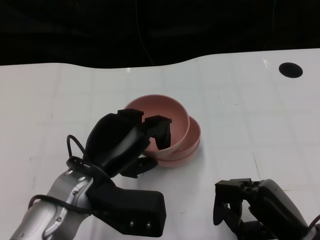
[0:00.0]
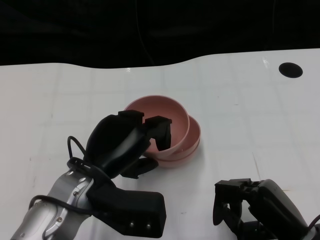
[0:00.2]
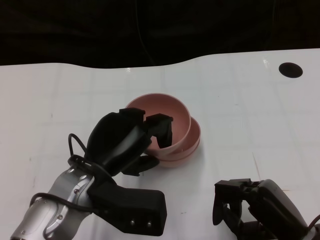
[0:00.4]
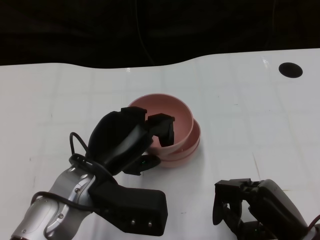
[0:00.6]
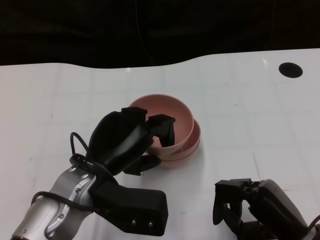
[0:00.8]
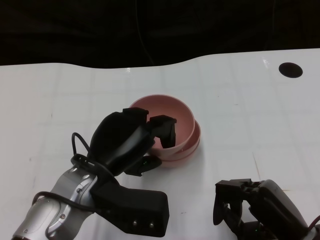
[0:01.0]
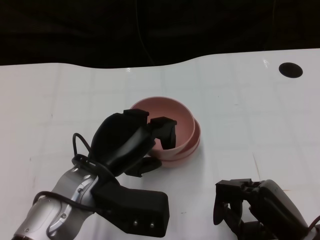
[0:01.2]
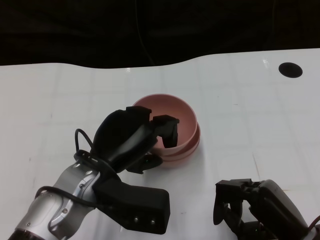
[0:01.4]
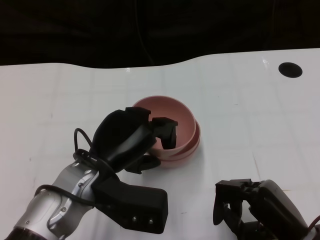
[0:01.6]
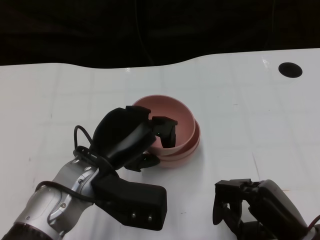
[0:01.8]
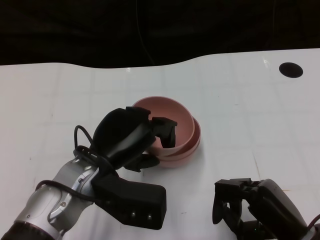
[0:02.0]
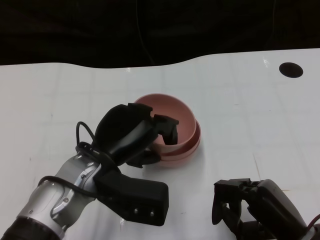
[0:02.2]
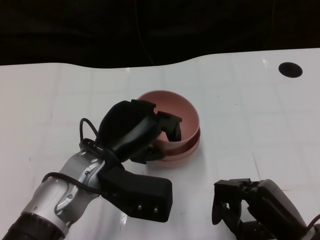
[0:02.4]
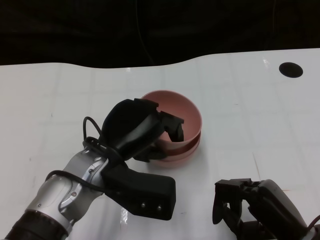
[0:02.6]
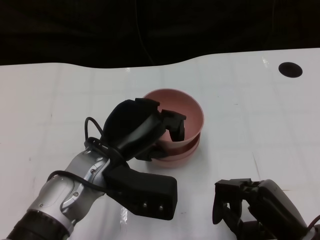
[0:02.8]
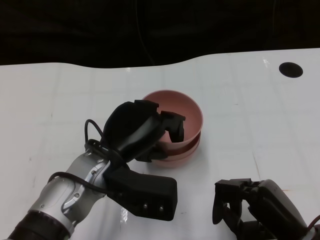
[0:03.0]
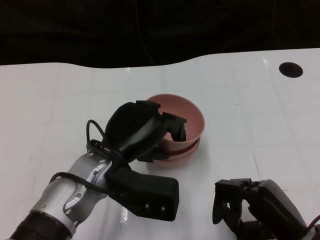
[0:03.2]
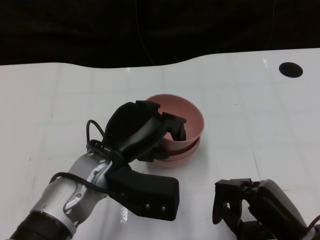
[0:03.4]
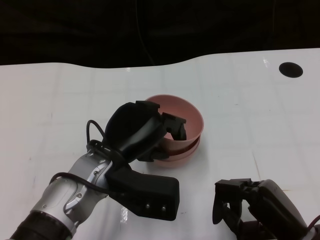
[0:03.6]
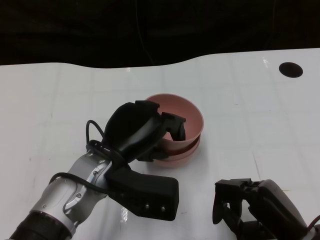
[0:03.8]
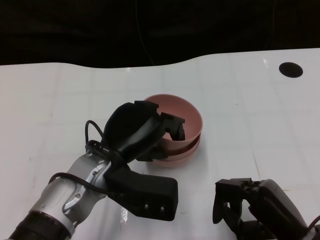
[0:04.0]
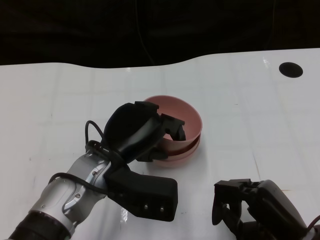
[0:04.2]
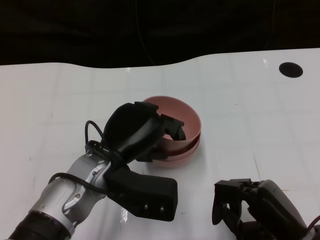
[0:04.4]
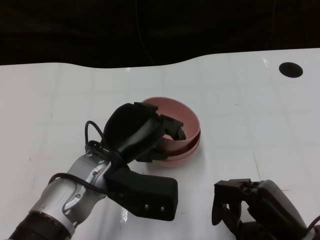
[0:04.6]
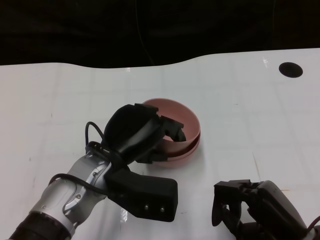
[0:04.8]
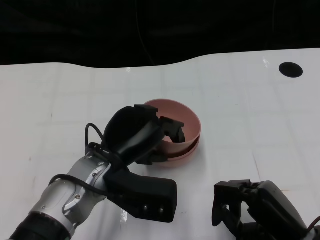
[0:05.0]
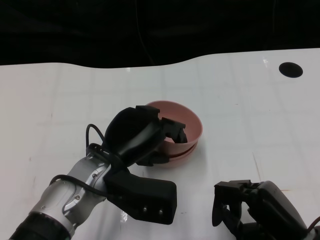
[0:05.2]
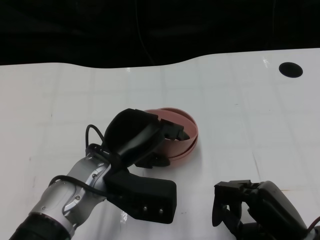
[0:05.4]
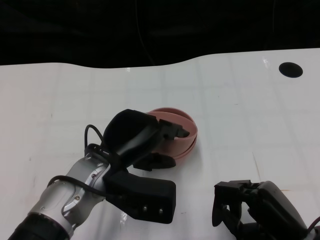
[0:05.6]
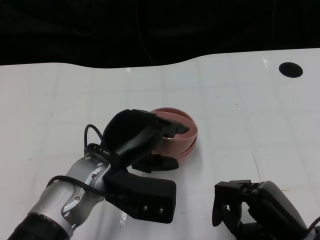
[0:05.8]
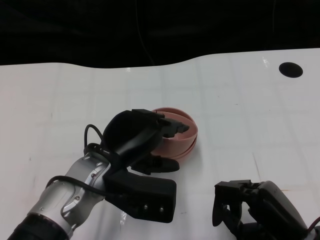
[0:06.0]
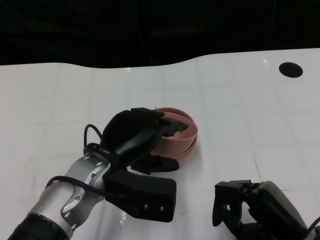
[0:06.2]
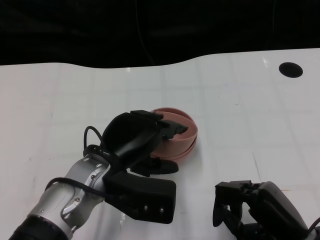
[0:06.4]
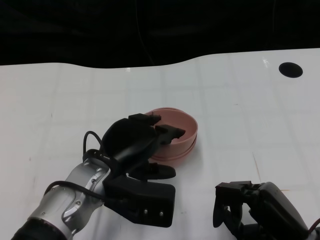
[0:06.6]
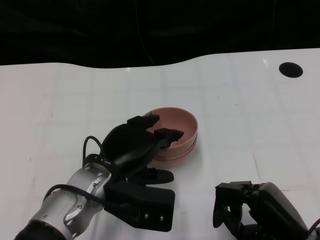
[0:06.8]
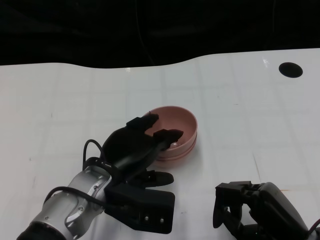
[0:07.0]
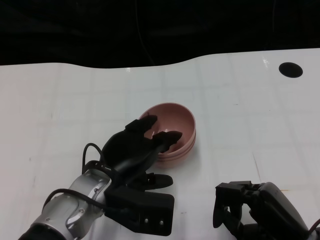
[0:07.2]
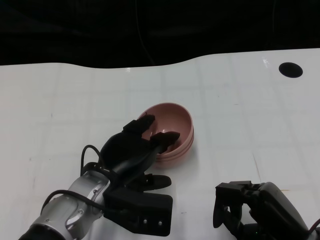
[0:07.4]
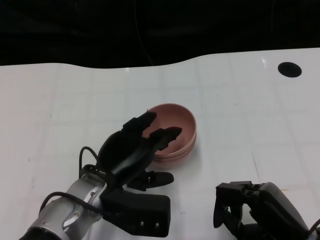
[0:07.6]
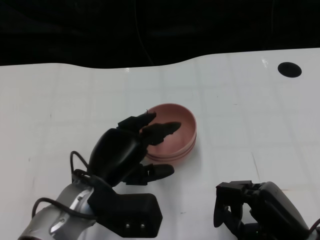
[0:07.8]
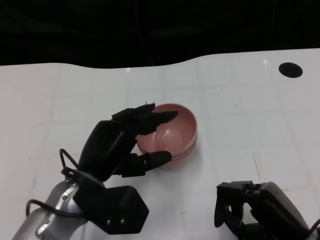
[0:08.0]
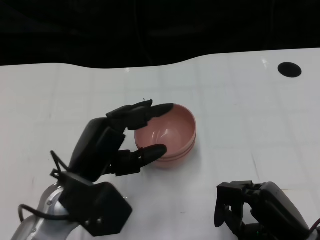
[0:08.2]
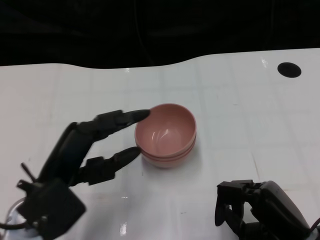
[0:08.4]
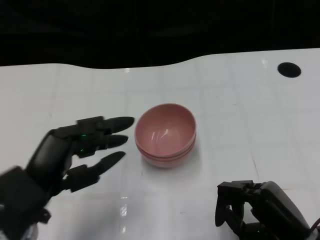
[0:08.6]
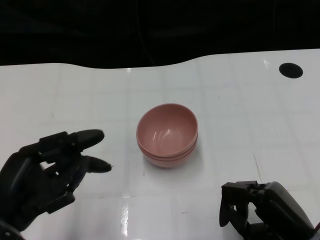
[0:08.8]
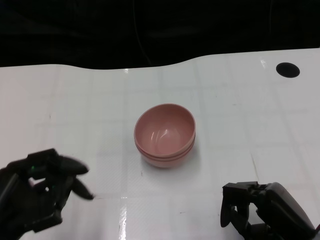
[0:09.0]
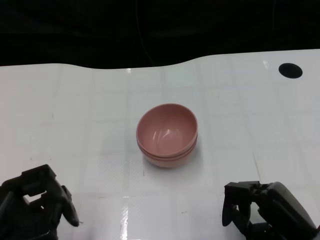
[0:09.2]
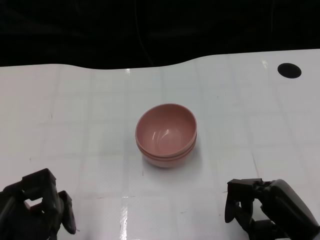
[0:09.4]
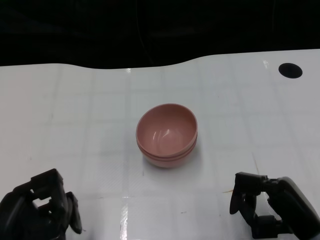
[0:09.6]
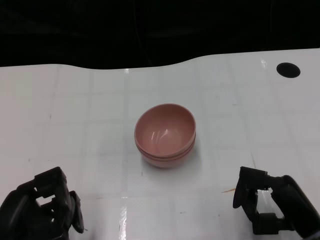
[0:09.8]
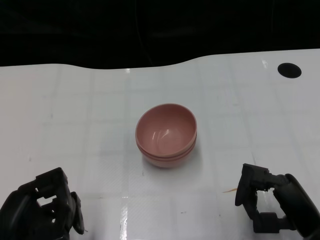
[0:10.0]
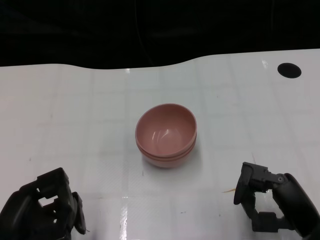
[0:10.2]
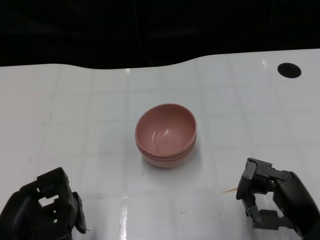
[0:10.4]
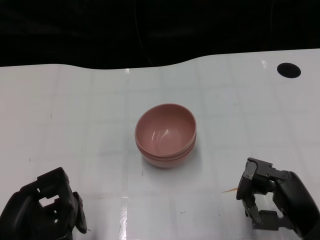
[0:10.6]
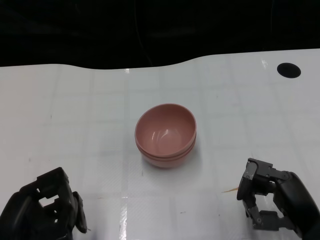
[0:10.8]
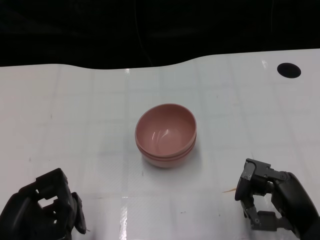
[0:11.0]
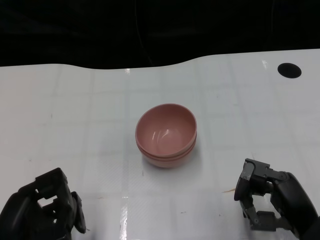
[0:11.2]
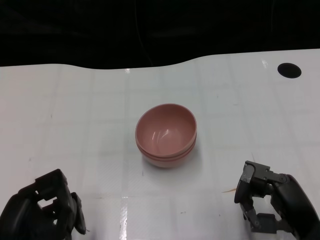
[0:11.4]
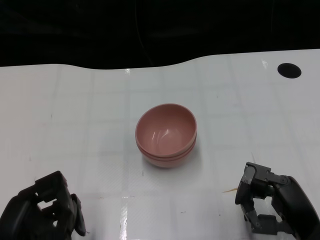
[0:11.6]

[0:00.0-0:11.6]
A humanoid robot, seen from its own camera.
Task of the whole recording: Pick up the bowl on one side of the table and place it on top of the middle bowl, then pick up the bowl on the other side of the table and place it on top of the middle bowls.
Step, 0:00.0 to 0:08.0: Place the bowl on the left onto the bowl in the middle with left gripper.
0:00.0 to 0:01.4: Neither hand changes place.
0:01.4 to 0:02.8: The hands move only a little.
0:02.8 to 0:04.4: Neither hand changes place.
0:04.4 to 0:07.2: The hands make only small movements.
0:07.2 to 0:08.8: The left hand is displaced to the left and backward by approximately 15 cm.
0:08.8 to 0:10.2: The left hand heads downward, covering roughly 5 cm.
0:10.2 to 0:11.6: The hands move only a little.

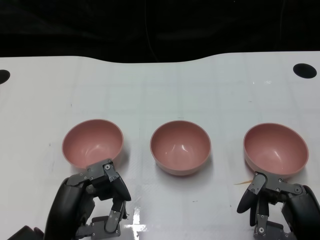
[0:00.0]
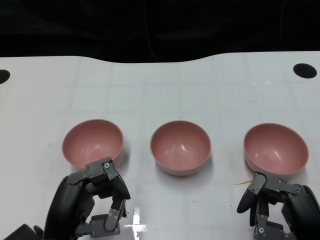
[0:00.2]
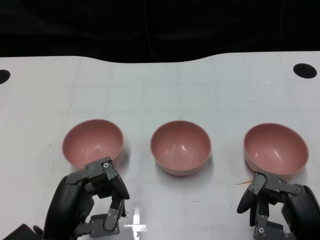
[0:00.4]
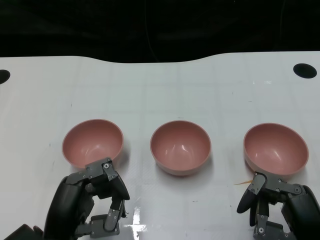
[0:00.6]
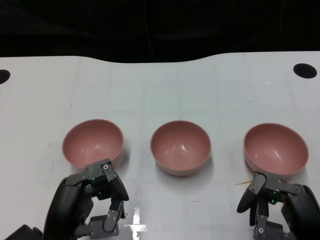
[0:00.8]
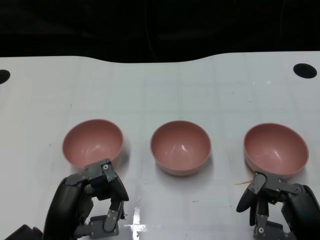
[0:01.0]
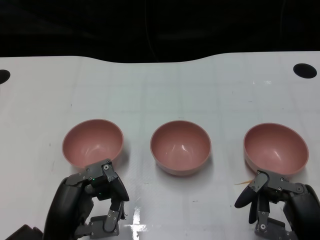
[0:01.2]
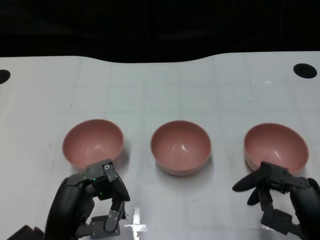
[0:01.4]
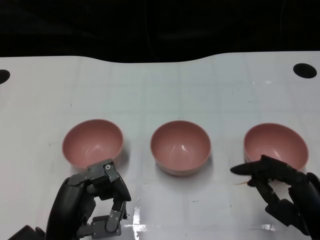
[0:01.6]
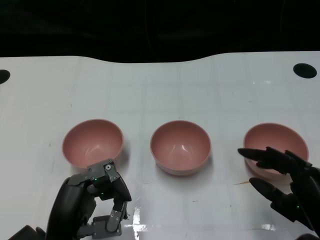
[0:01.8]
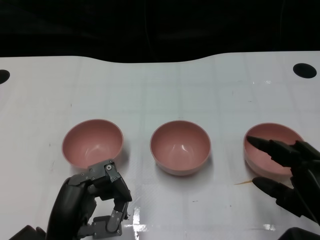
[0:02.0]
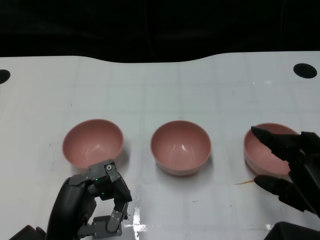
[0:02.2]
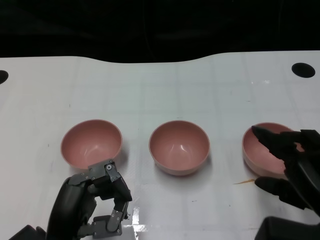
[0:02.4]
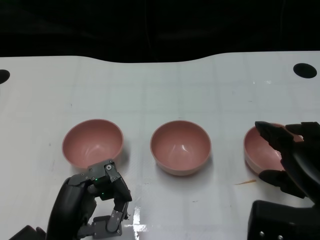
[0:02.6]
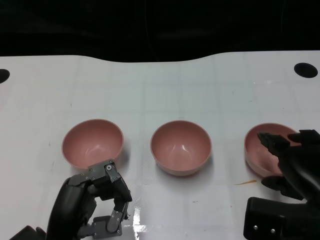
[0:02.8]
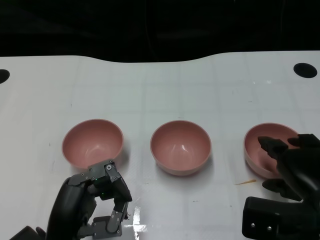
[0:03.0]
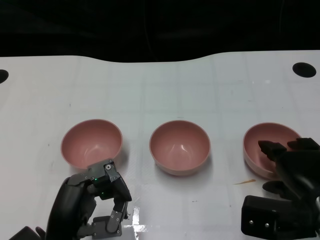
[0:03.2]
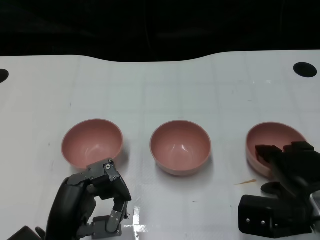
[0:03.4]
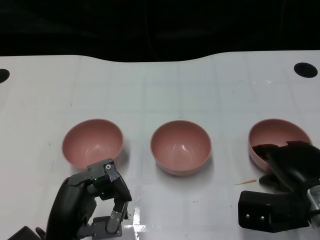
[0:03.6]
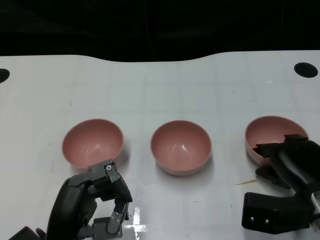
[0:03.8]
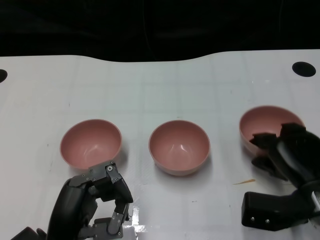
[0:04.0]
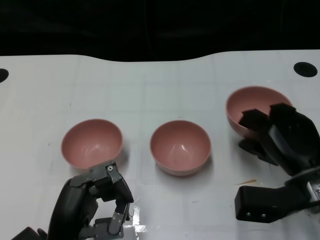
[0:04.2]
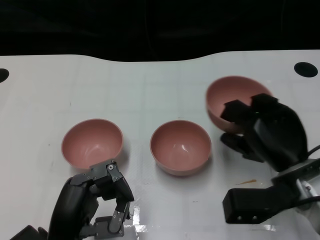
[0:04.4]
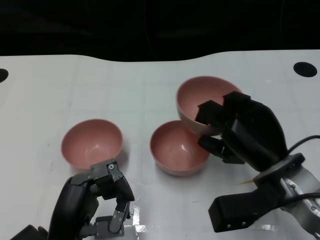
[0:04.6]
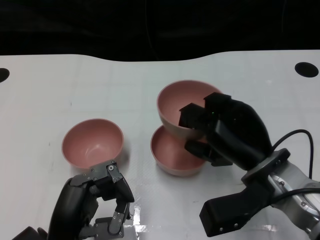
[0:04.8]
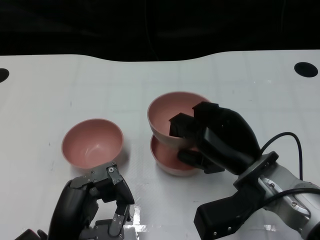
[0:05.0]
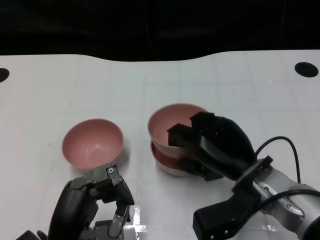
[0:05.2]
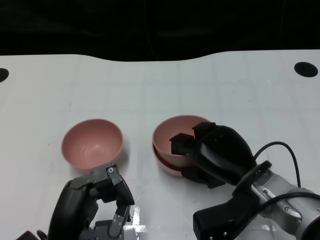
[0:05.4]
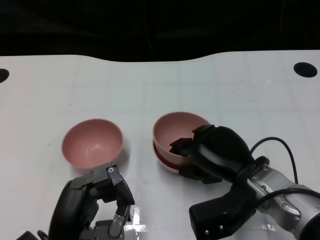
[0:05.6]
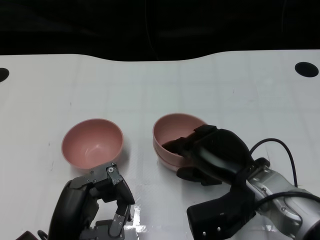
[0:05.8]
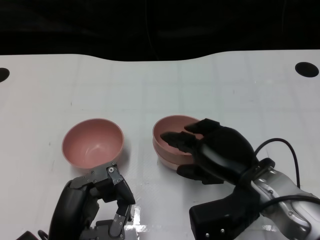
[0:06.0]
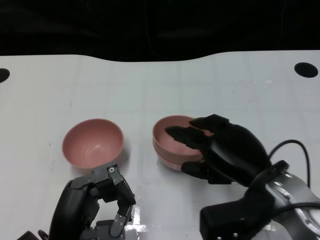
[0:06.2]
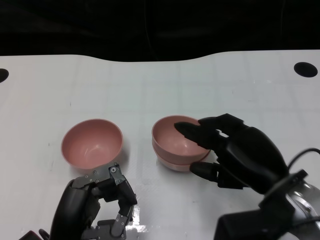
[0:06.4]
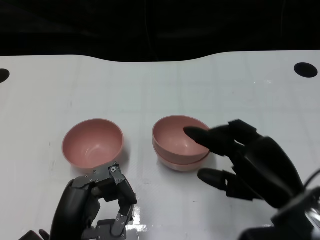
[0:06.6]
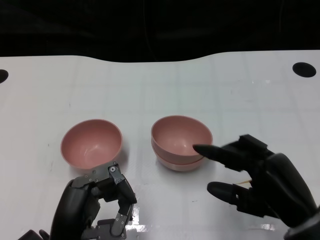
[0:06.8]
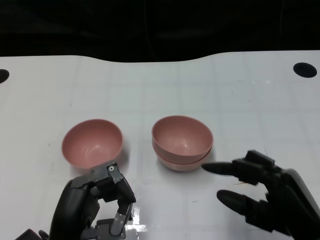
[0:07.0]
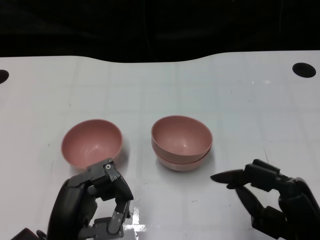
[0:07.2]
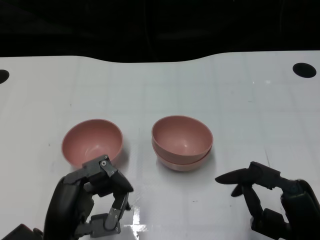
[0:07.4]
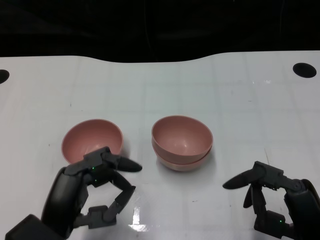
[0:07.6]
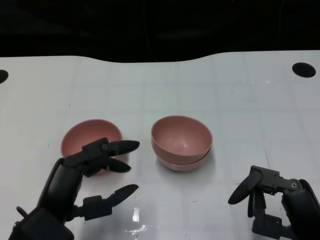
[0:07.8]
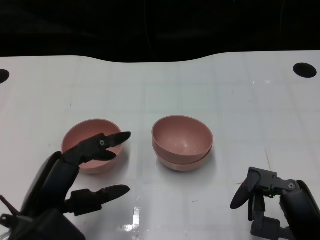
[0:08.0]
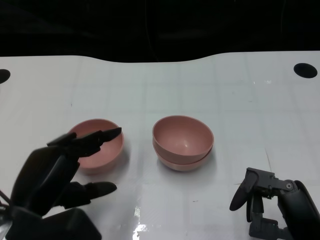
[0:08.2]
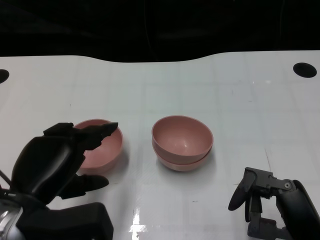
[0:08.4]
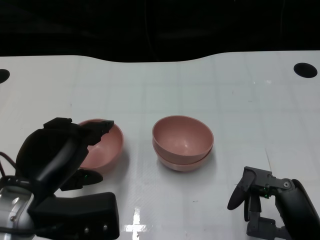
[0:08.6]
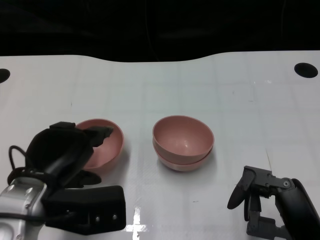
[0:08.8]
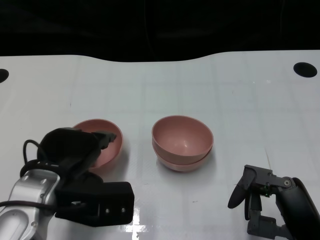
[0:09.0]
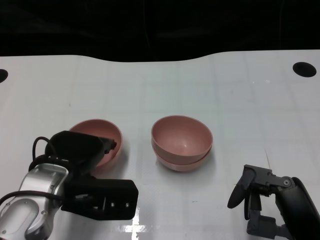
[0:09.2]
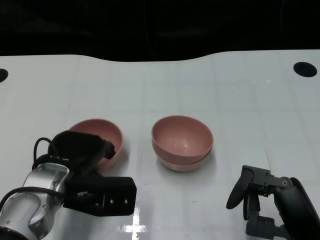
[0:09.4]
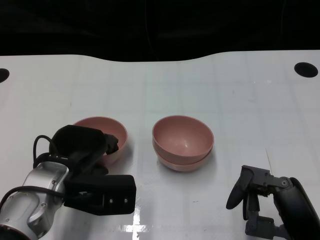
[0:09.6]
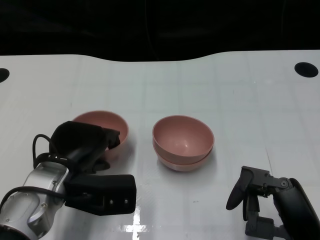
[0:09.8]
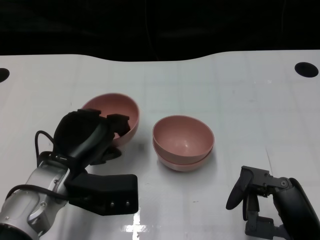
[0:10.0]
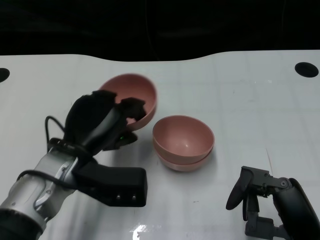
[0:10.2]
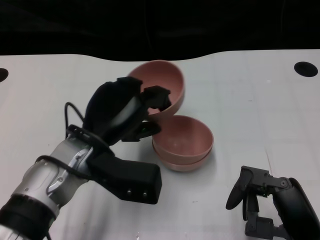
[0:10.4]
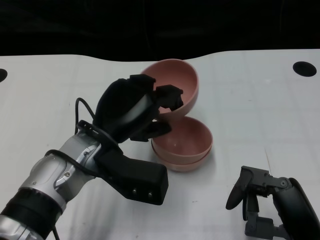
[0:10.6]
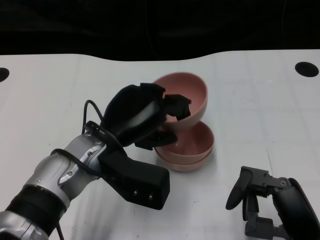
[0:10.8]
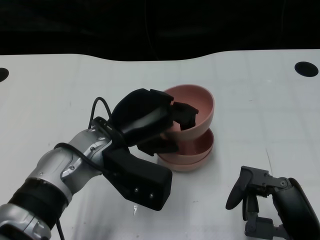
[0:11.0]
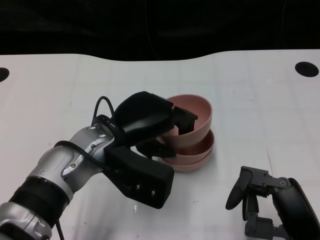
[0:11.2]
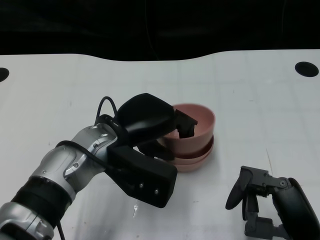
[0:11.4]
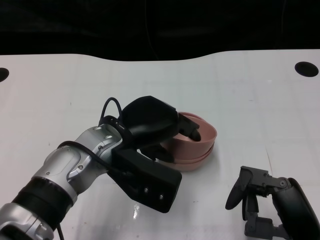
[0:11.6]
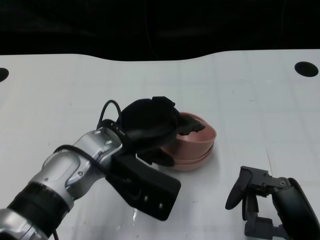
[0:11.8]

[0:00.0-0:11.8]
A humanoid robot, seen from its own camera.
Task of the whole recording: Pick up the bowl on one side of the table and place it on top of the middle bowl, then pick up the bowl on the other side of the table and place it on top of the middle bowls.
Step, 0:01.0 to 0:03.8: Grasp the bowl on the right with the right gripper.
Step, 0:04.2 to 0:06.4: Place the bowl on the right onto the bowl in the middle with right gripper.
Step, 0:06.6 to 0:09.6: Grasp the bowl on the left with the left gripper.
0:01.4 to 0:03.0: The right hand goes approximately 5 cm forward.
0:03.0 to 0:04.4: The right hand moves some 5 cm.
0:04.4 to 0:06.0: The right hand is displaced to the left by roughly 5 cm.
0:06.0 to 0:07.4: The right hand is displaced backward and to the right by some 10 cm.
0:07.4 to 0:08.8: The left hand goes approximately 10 cm forward and upward.
0:08.8 to 0:10.4: The left hand moves to the right and forward, about 10 cm.
